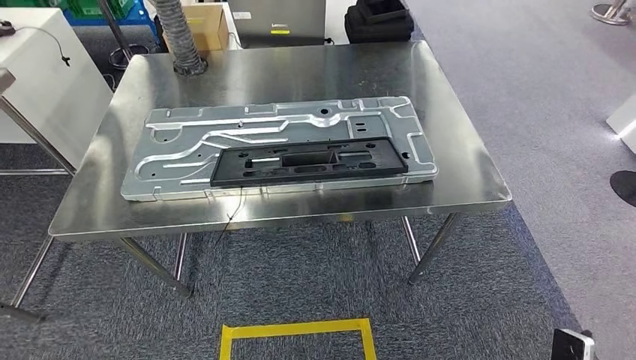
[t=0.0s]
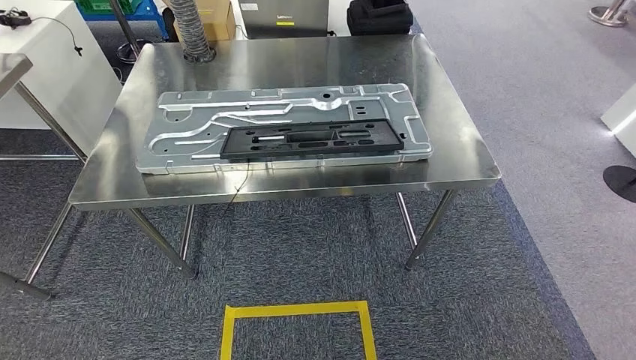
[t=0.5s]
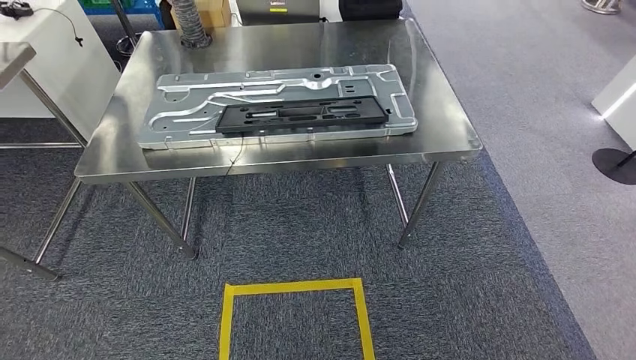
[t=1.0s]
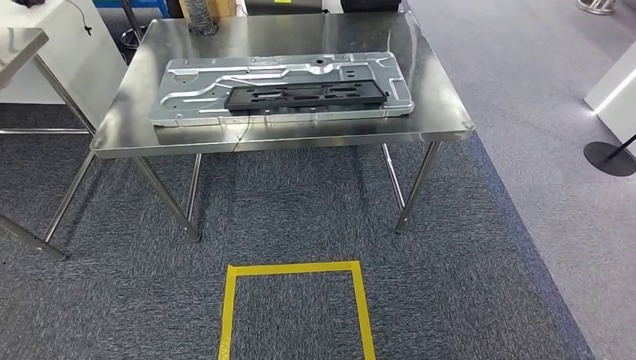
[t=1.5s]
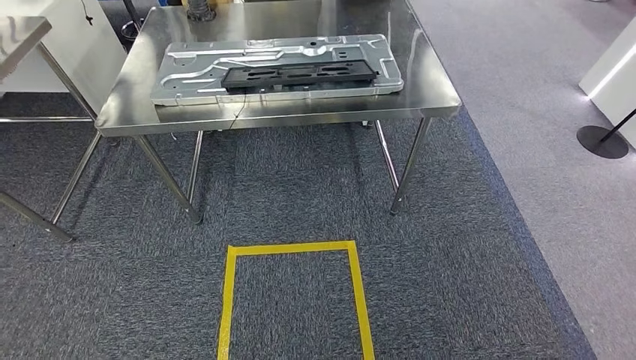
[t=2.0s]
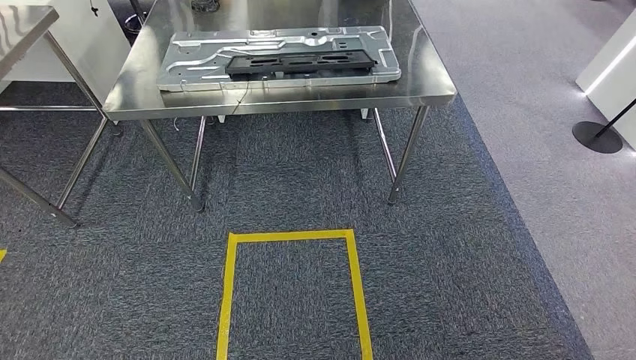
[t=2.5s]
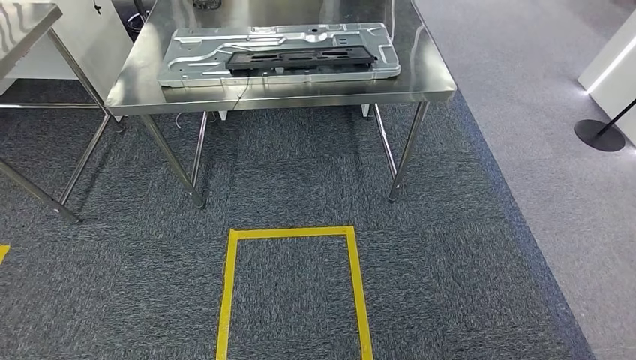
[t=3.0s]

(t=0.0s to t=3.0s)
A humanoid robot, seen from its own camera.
Step, t=0.0s - t=3.0s: Move to the initial position of the shelf.
